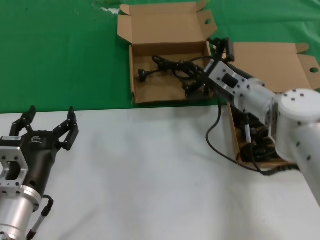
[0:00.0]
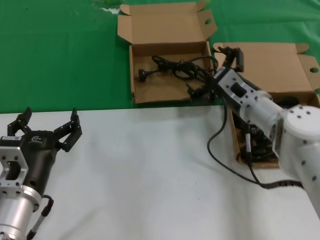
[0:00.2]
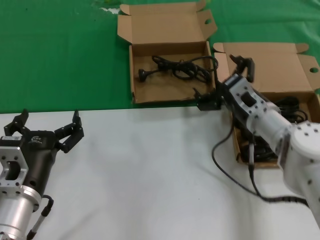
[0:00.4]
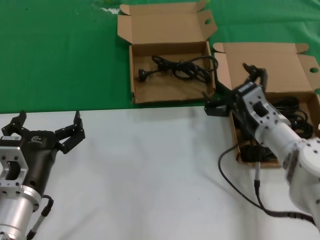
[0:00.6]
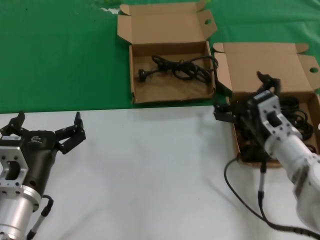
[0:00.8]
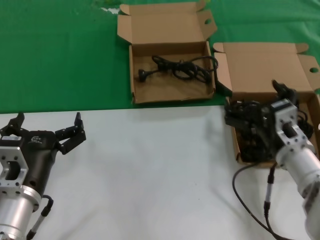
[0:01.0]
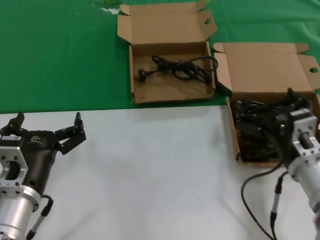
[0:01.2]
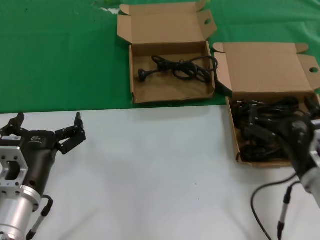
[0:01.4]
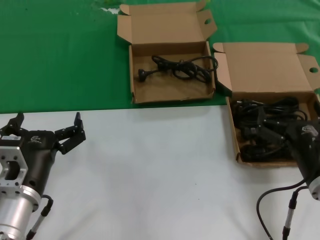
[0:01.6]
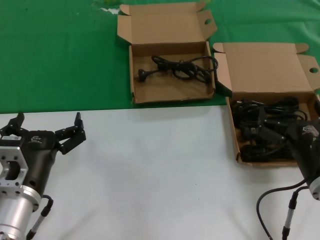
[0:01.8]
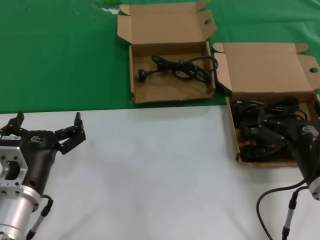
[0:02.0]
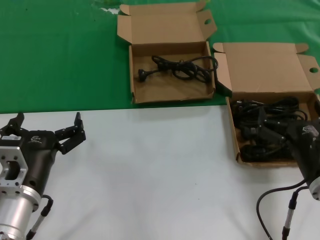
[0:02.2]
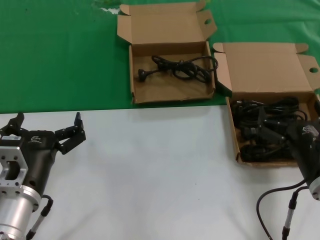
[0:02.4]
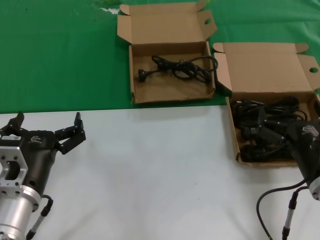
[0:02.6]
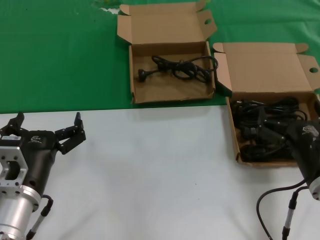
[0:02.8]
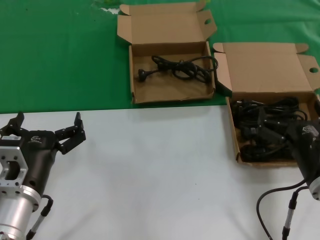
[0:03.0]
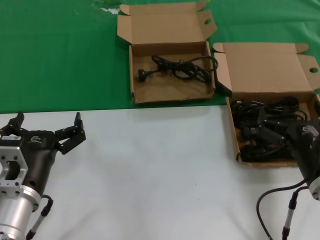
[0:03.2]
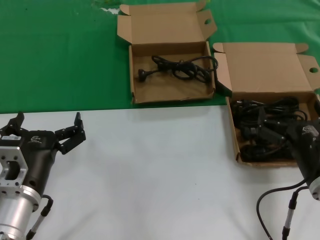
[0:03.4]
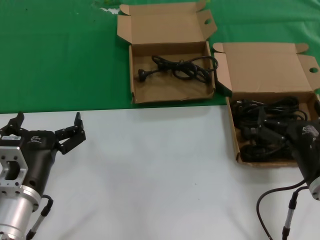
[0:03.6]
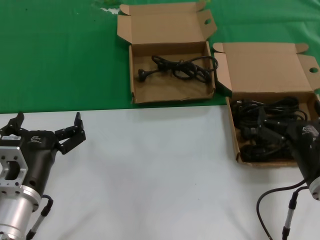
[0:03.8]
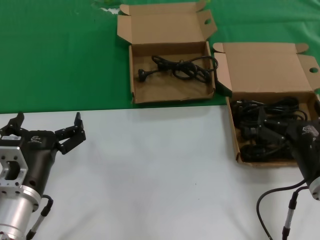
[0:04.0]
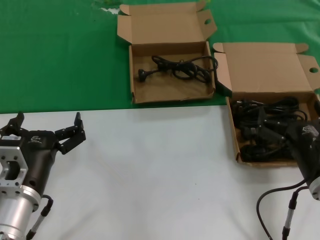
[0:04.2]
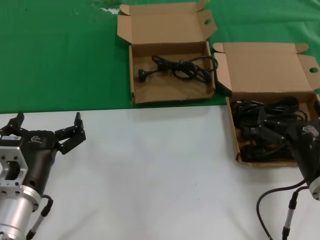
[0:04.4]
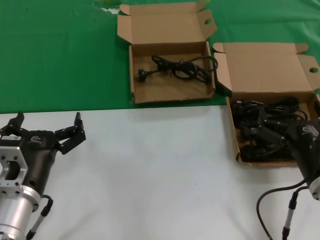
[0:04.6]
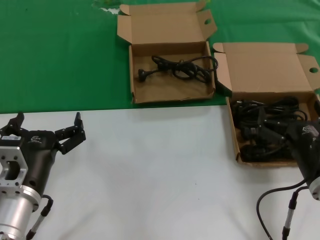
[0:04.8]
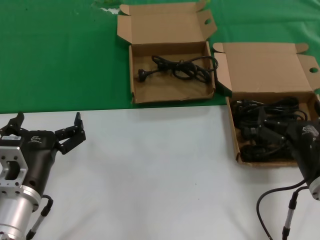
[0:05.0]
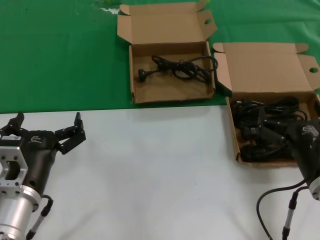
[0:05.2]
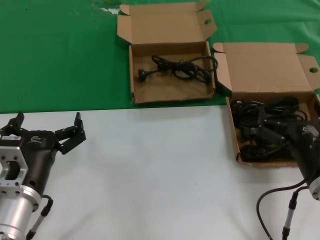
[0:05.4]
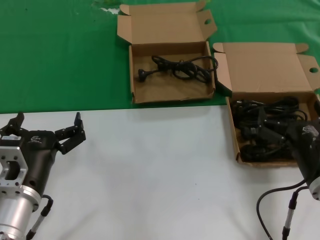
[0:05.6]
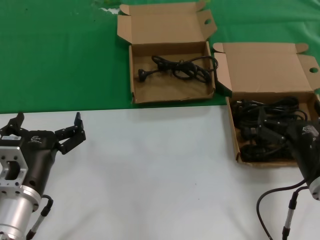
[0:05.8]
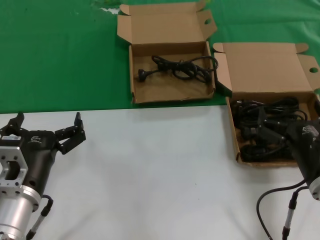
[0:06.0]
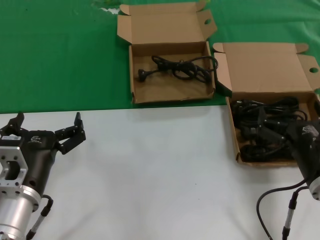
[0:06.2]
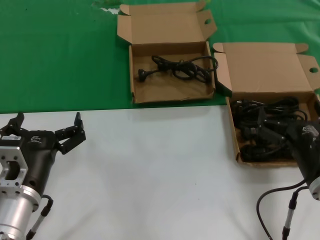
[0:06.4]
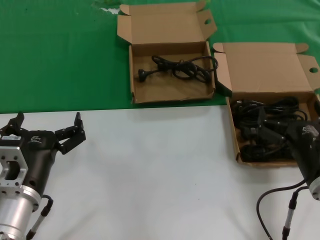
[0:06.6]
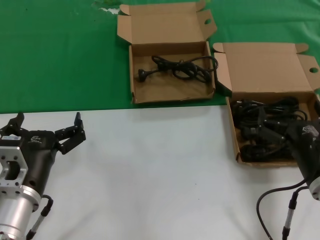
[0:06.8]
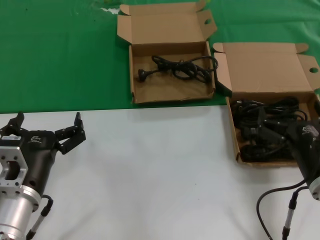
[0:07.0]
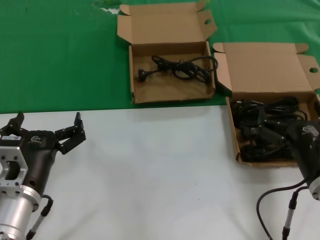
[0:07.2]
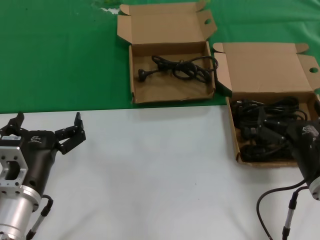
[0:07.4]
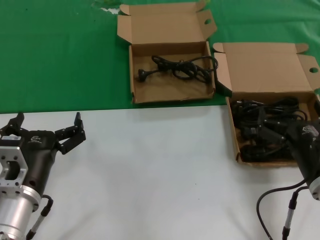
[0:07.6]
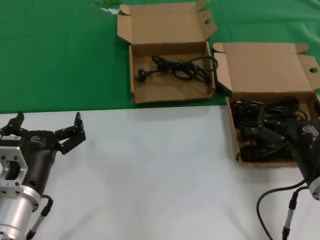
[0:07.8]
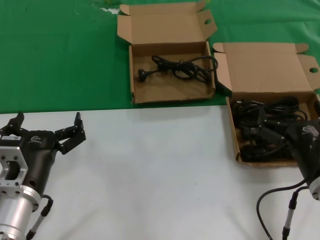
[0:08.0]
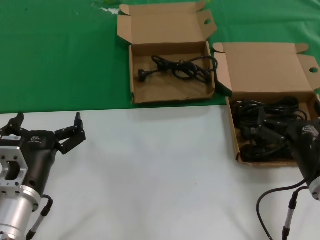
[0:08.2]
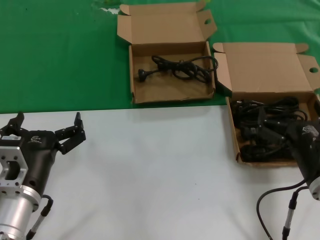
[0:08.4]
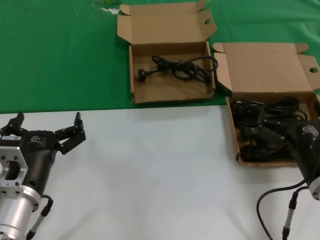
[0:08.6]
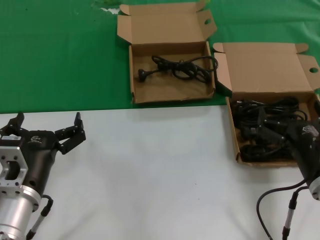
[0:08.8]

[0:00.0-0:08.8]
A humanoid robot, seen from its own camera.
Task of the whole recording: take the parts from the box containing them and put them into an empty box.
0:00.0 to 0:01.4: The right hand travels backward by about 20 cm.
0:01.4 to 0:03.0: The hands make only small movements.
0:03.0 to 0:08.8: Neither hand changes place.
